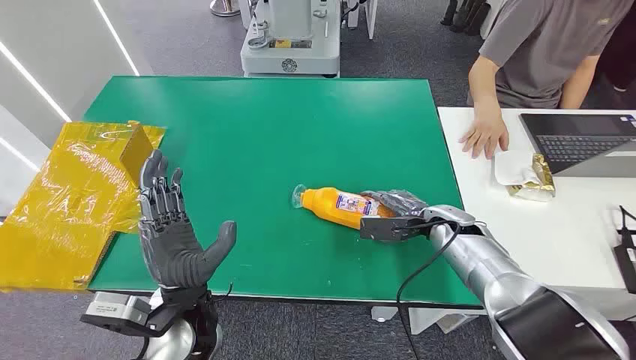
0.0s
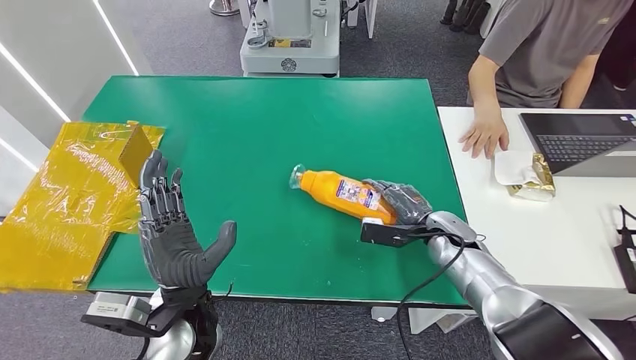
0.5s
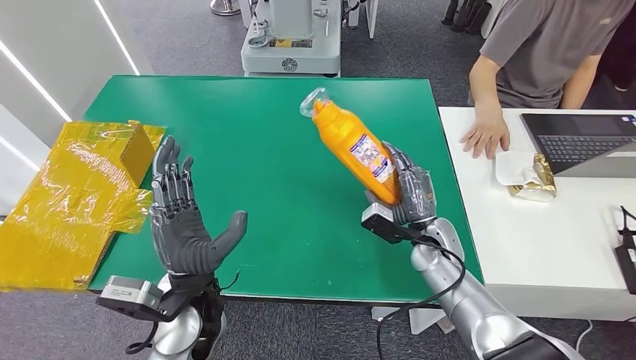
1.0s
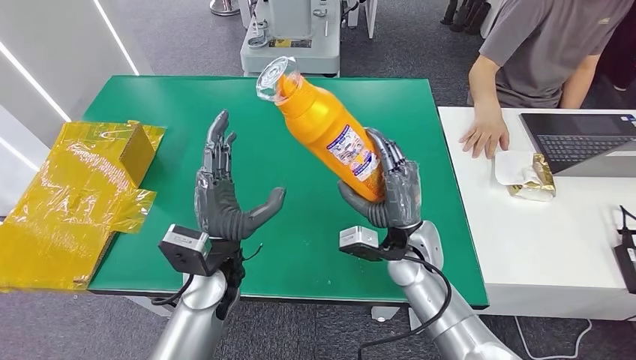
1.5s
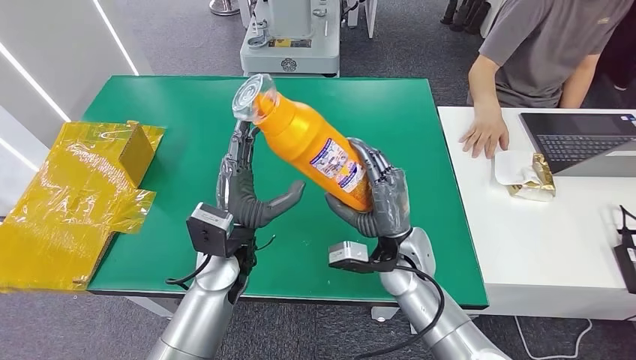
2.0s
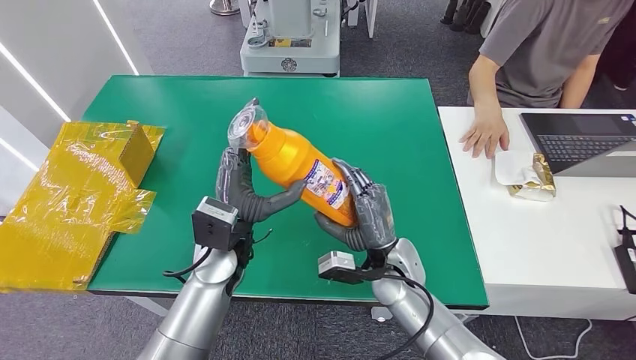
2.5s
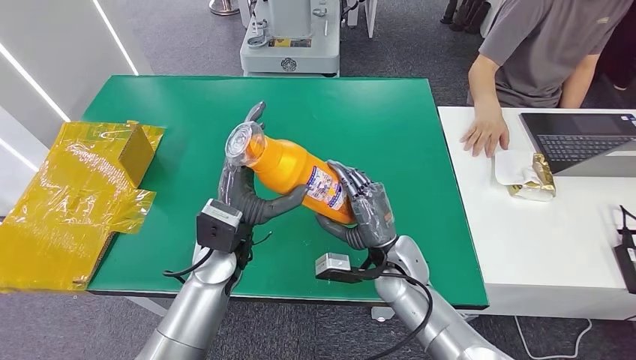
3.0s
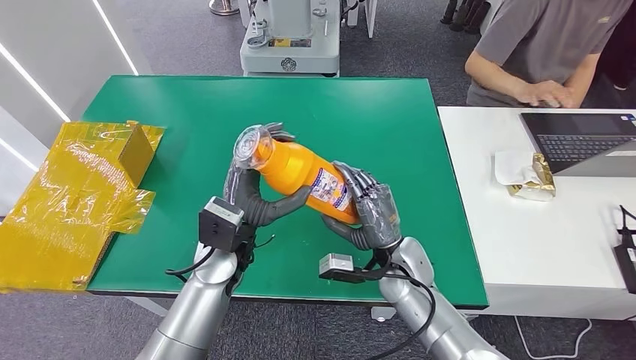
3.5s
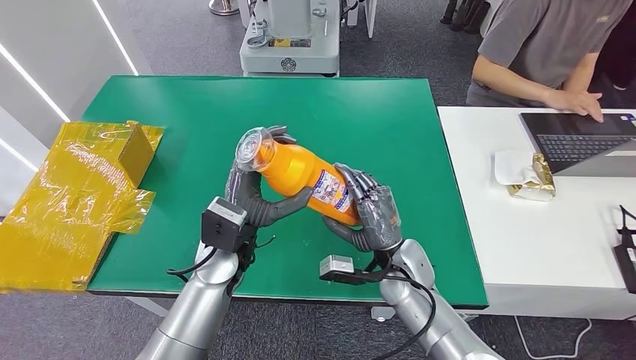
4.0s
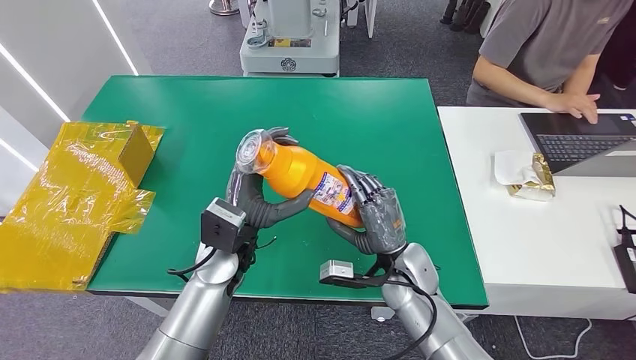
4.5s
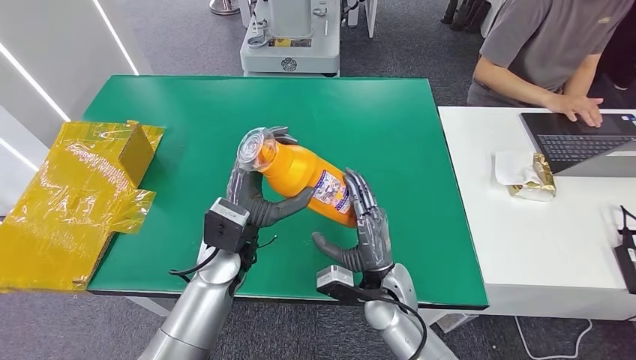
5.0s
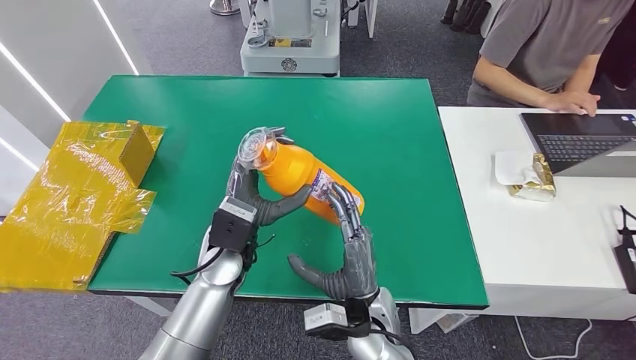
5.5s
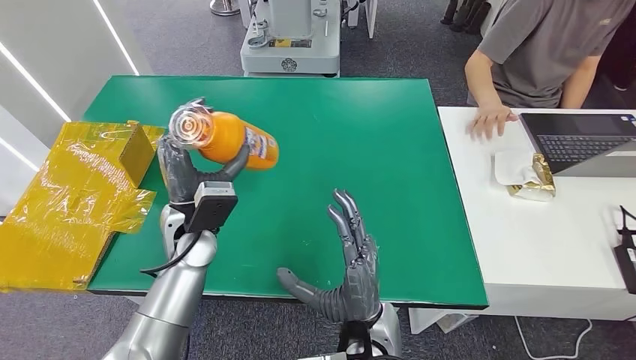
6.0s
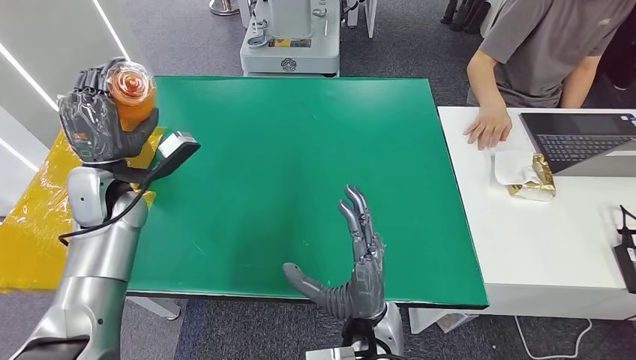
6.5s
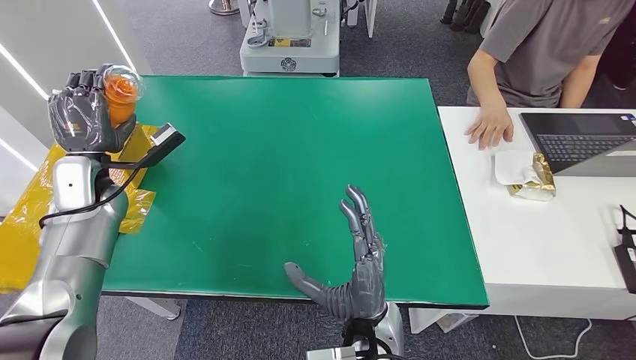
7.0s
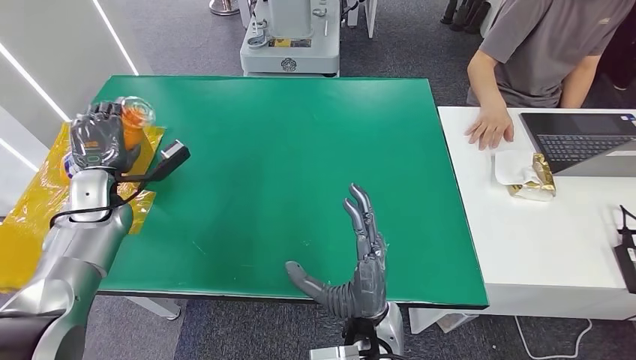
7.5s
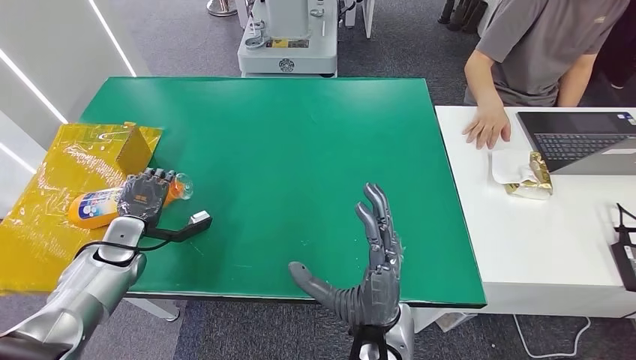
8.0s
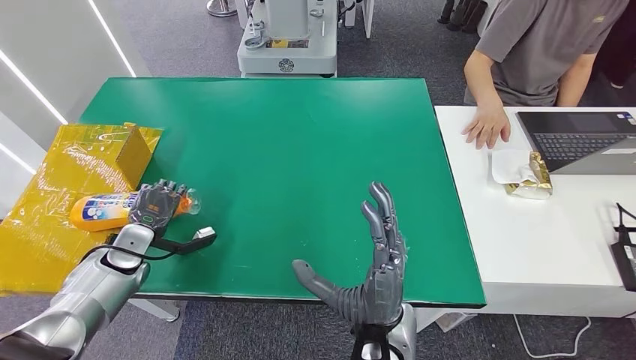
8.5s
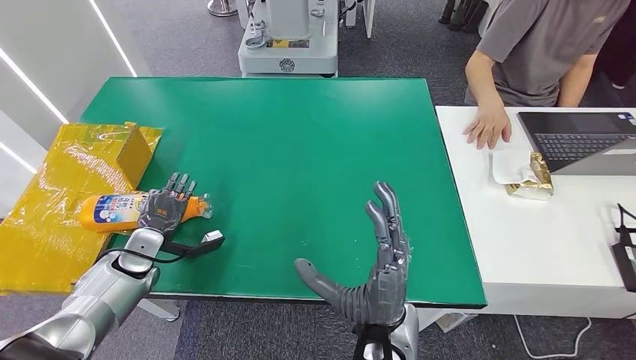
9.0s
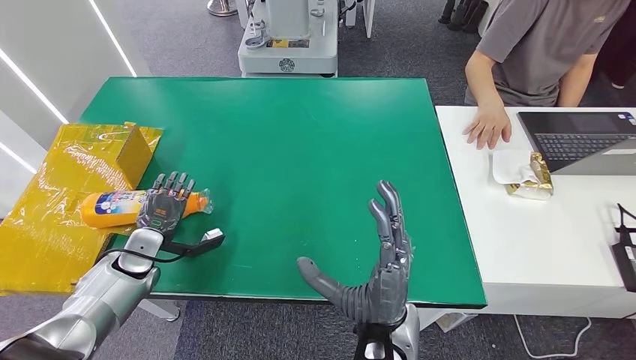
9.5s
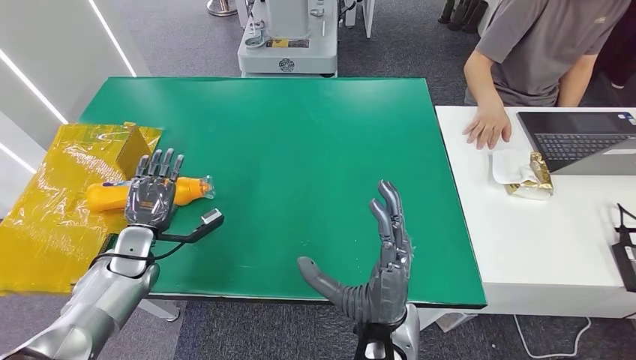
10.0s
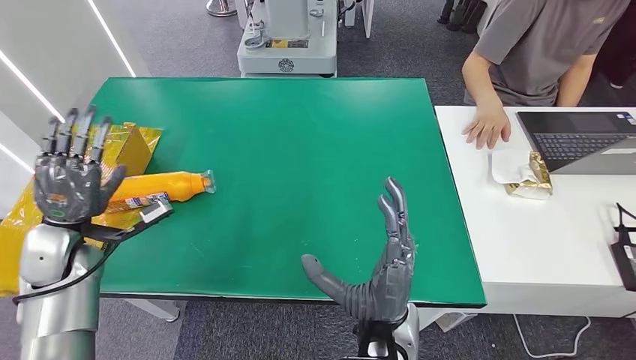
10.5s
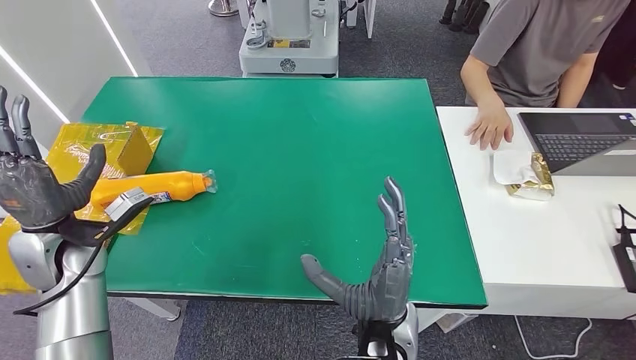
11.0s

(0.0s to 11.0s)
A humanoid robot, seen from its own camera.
Step, 0.0s - 2.5s: Pick up the bottle from the table.
Step, 3.5s - 11.0s: Turn the bottle to the front side.
2.0s - 3.5s: The hands stay close to where they were, moving slightly.
3.5s - 5.5s: The right hand is displaced backward and to the left by some 10 cm.
5.5s - 7.5s: The right hand changes place by approximately 5 cm. The left hand goes some 25 cm to the left.
7.5s - 9.0s: The left hand goes roughly 15 cm downward and backward.
9.0s - 11.0s: The left hand shifts about 15 cm upward.

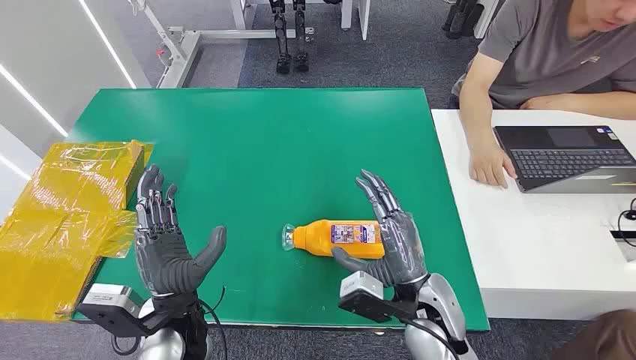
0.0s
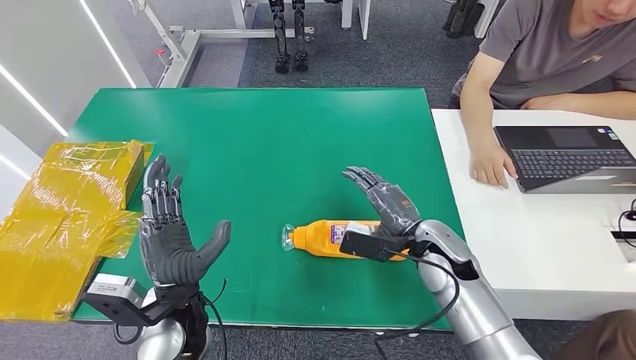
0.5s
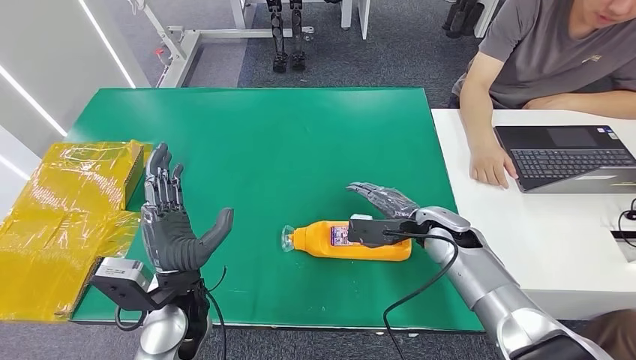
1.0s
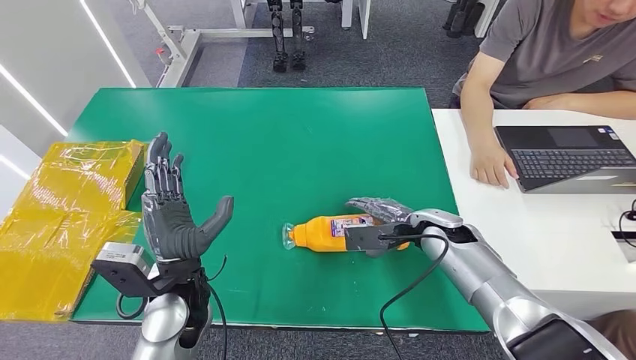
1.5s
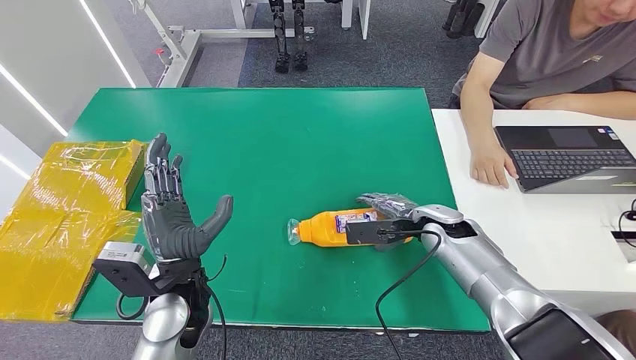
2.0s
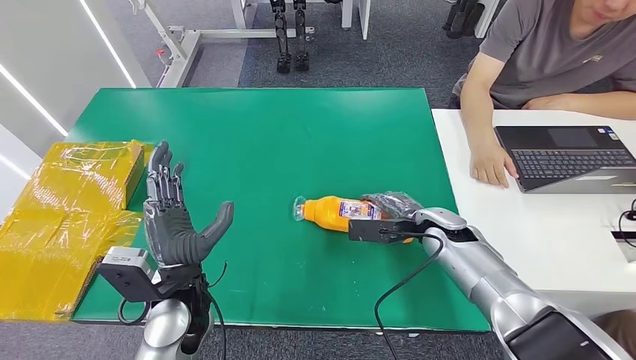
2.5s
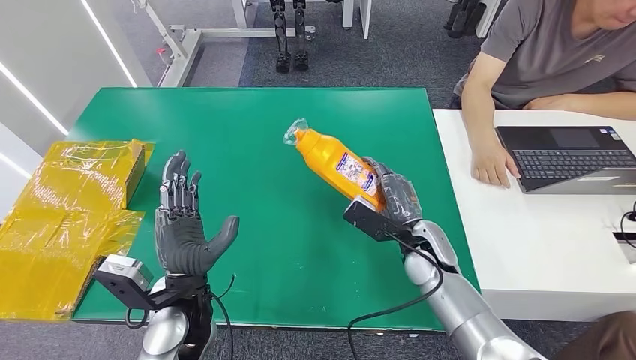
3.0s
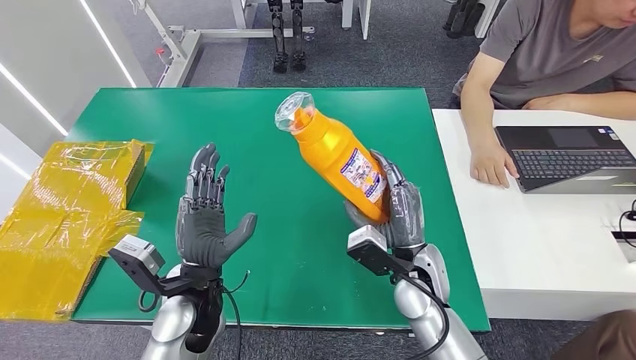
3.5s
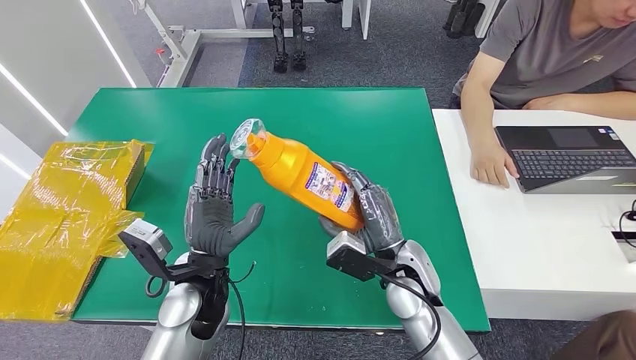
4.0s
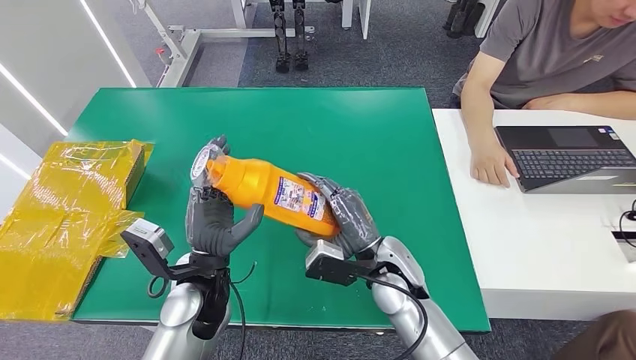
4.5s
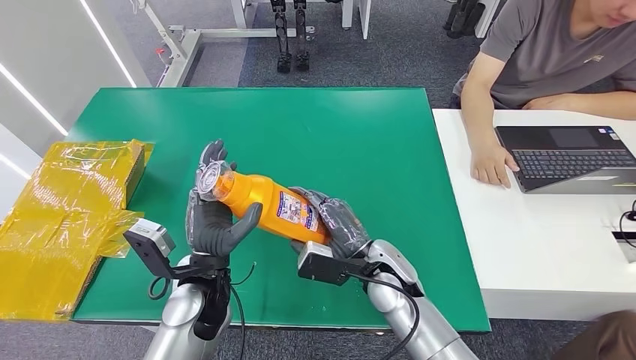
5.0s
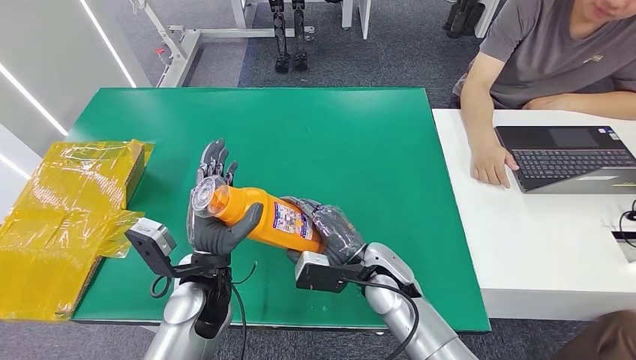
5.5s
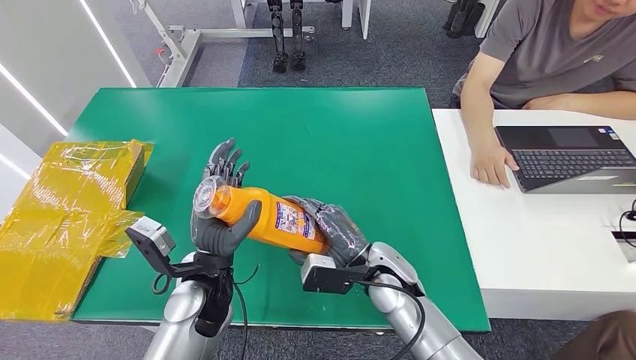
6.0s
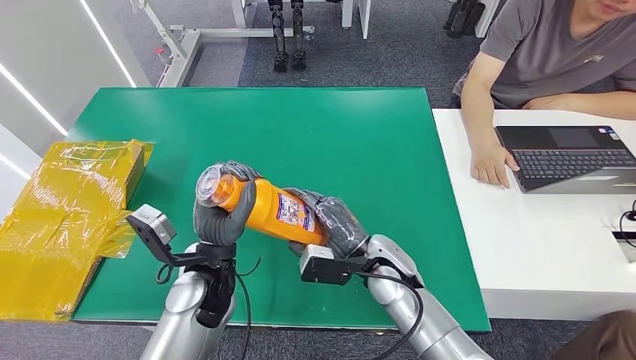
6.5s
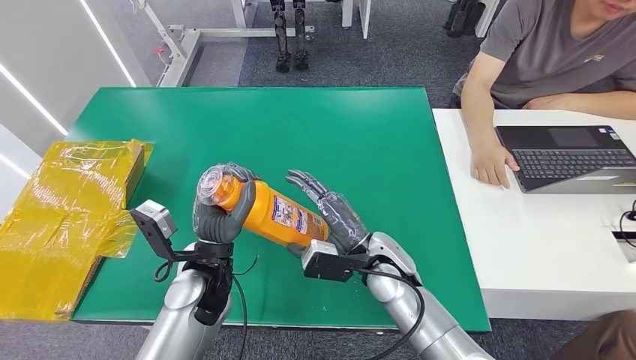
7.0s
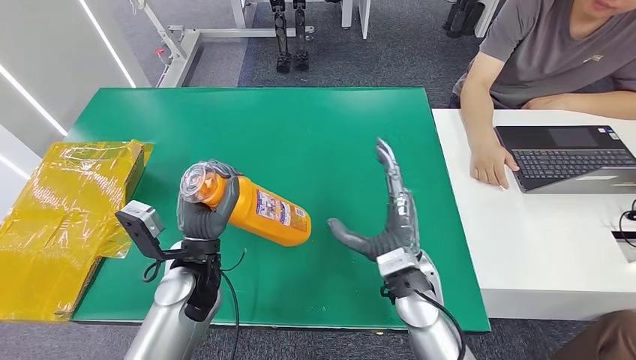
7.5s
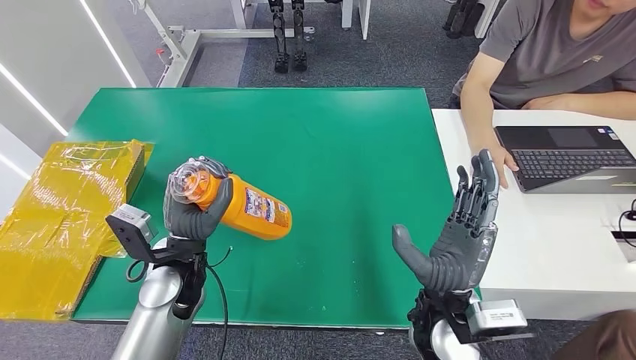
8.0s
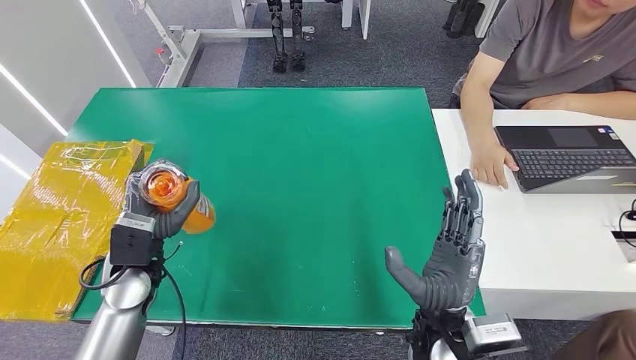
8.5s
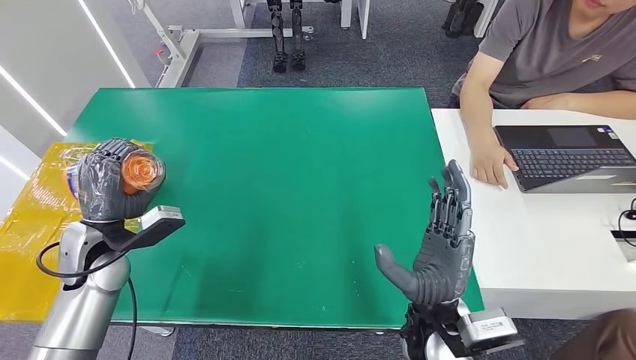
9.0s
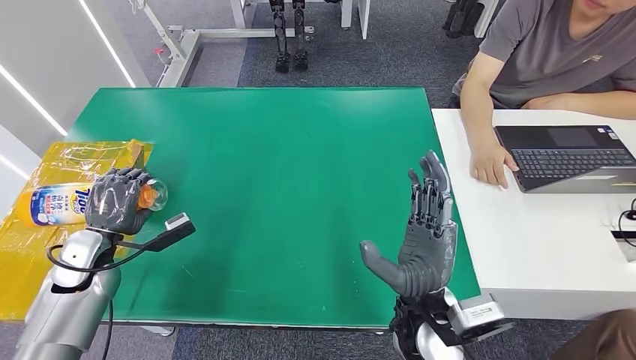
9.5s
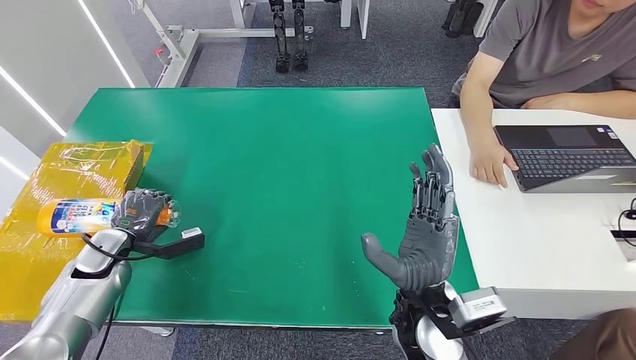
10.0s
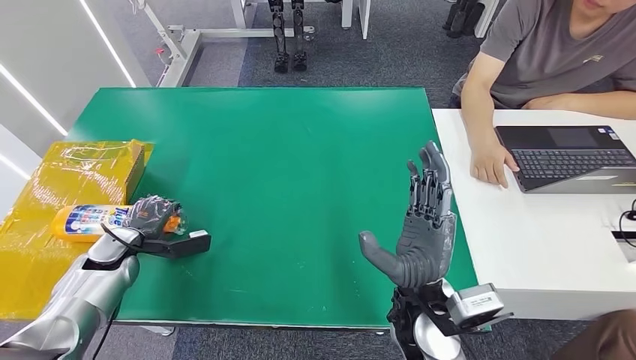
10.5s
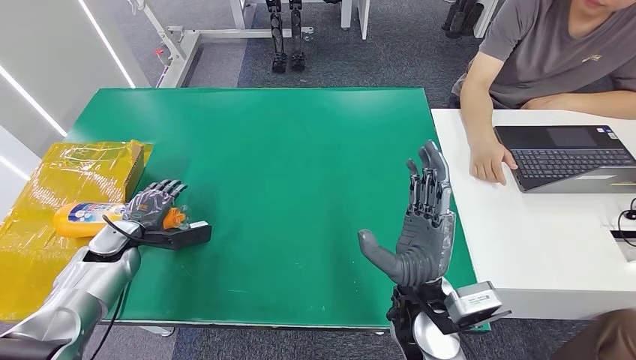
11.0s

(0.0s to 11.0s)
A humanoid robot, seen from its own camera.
Step, 0.0s - 8.5s: Pick up the bottle from the table.
2.0s - 3.5s: The right hand travels backward and to the left by approximately 15 cm.
3.5s - 5.5s: The right hand goes some 5 cm to the left.
5.5s - 7.5s: The right hand ends up roughly 5 cm from where it was.
7.5s - 9.0s: The right hand shifts some 5 cm backward, while the left hand goes some 15 cm to the left.
9.0s - 11.0s: The left hand travels downward, to the left and forward by some 10 cm.
